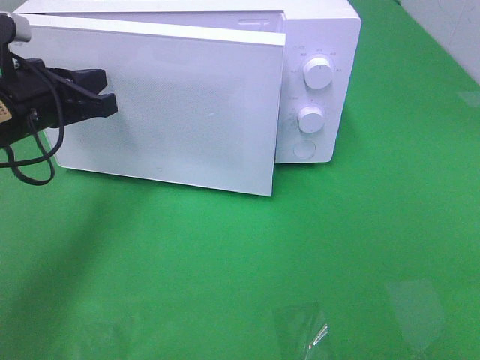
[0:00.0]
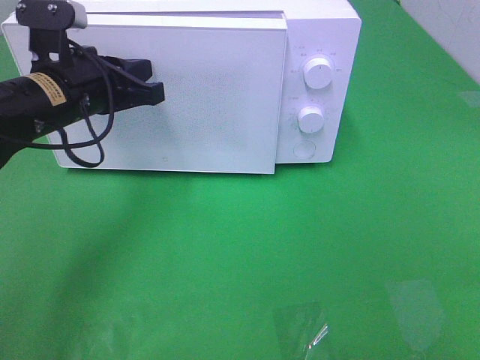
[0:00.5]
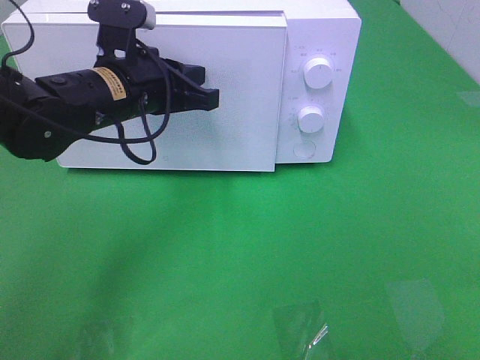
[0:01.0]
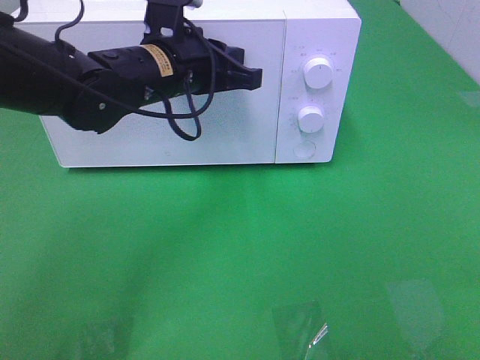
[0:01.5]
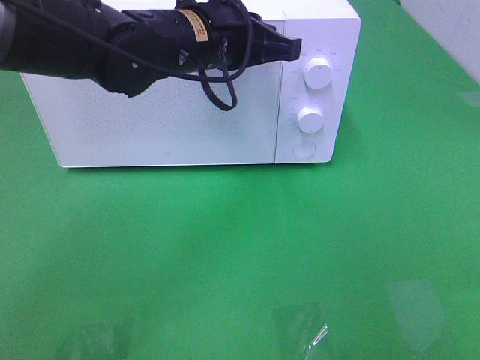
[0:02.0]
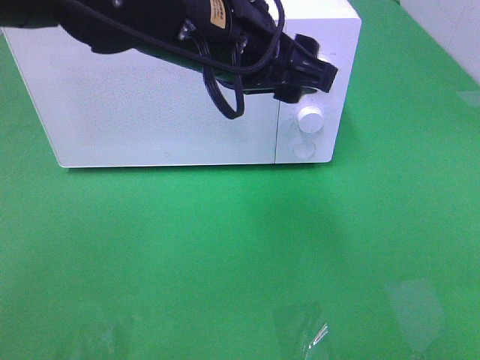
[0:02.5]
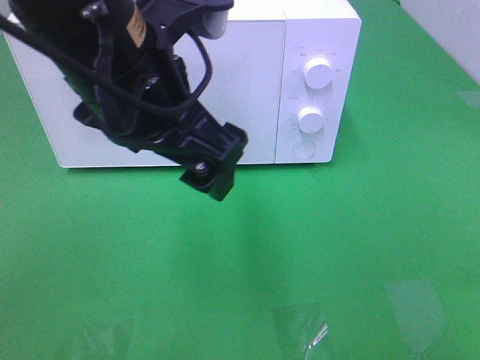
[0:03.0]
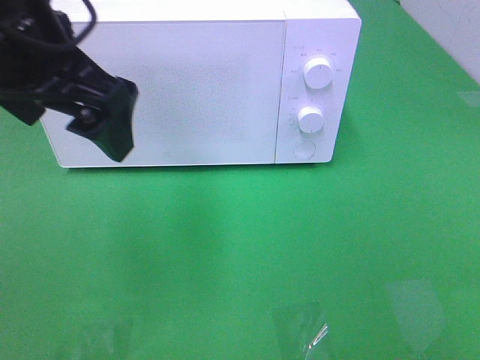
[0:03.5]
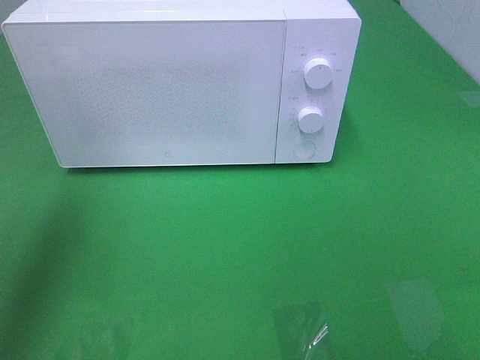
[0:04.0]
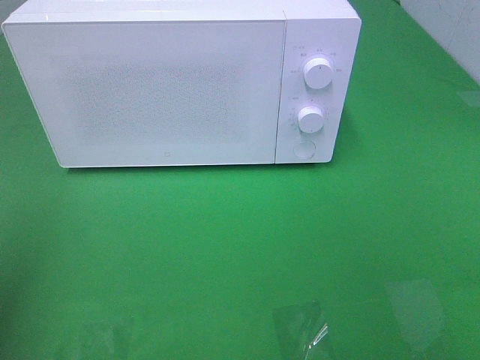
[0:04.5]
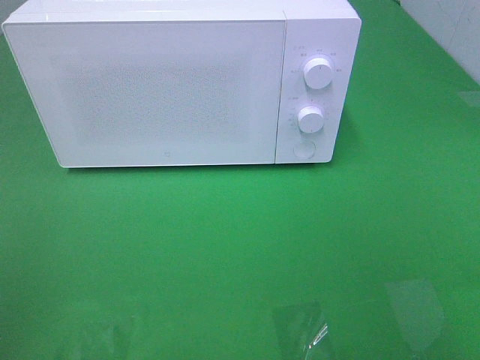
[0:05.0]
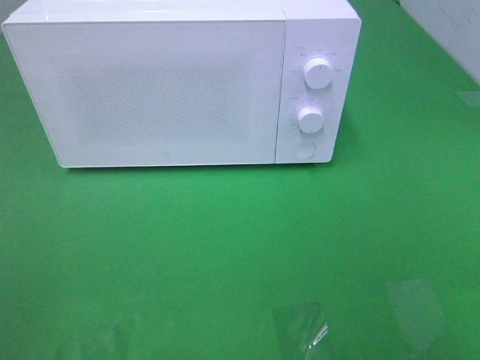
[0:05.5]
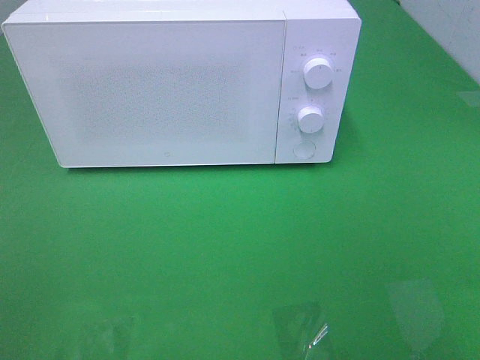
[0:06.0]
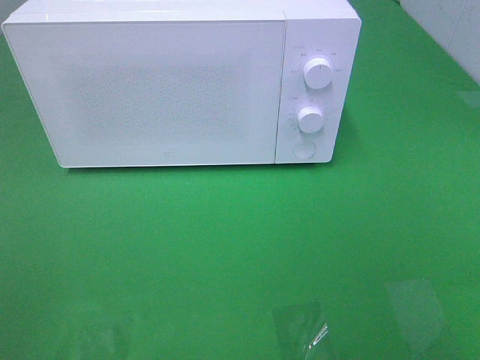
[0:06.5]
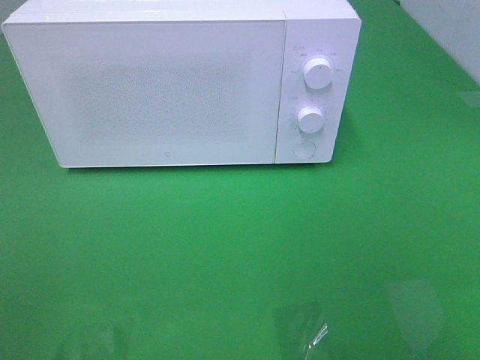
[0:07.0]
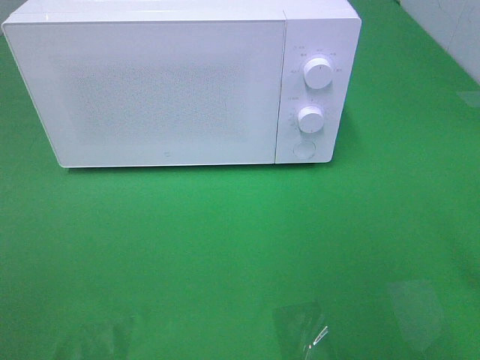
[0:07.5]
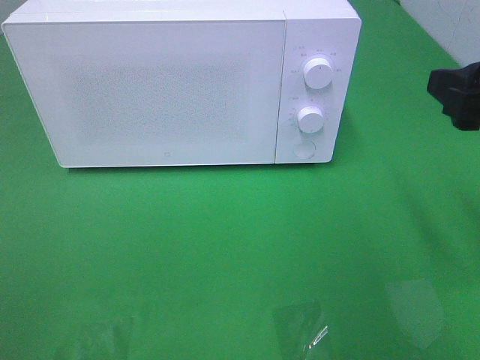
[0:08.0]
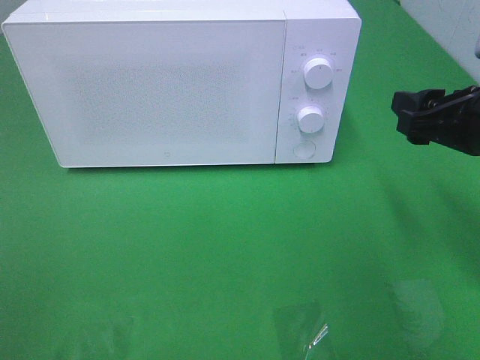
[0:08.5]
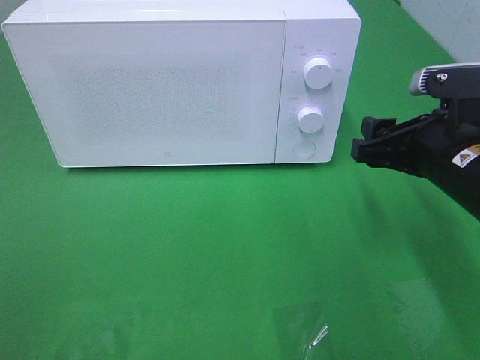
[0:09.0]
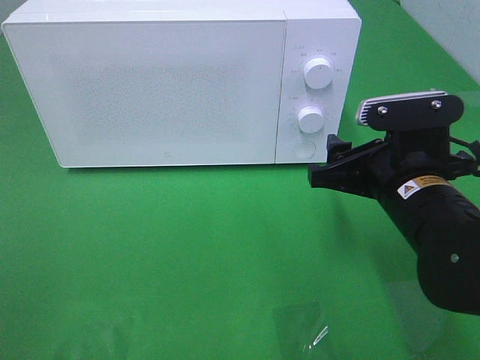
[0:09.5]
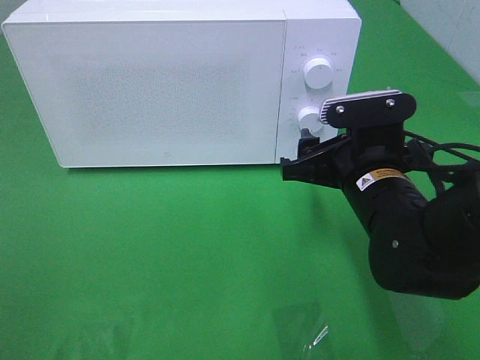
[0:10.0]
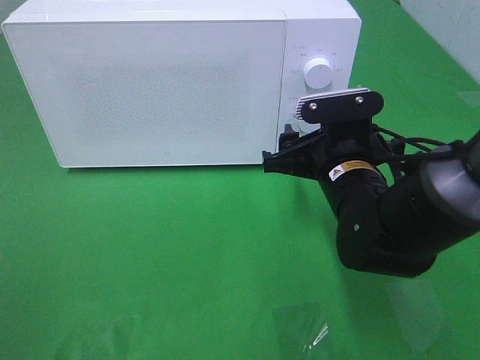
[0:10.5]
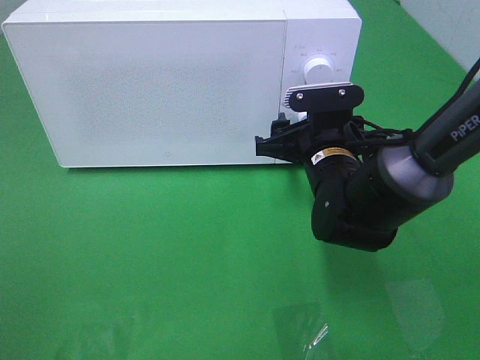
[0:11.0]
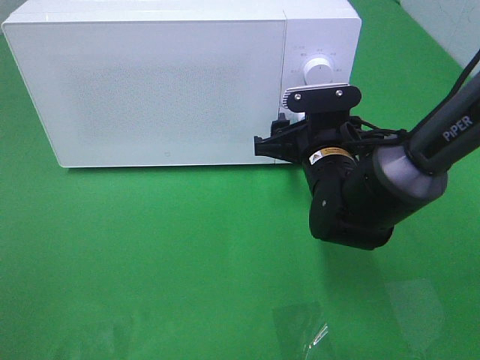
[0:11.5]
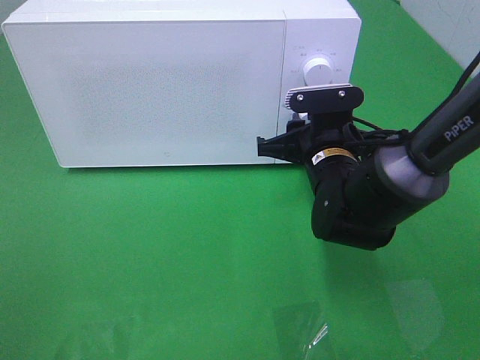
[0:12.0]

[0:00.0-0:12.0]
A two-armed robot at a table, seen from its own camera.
Task of the whole recording: Heat the burger.
Step, 0:00.0 to 0:02.0: Left hand: close the microwave door.
0:00.0 to 0:02.0: The left gripper shifts about 20 cm to the right.
0:02.0 to 0:04.0: The left gripper shifts about 30 cm to the left, backward and upward, and opens.
0:04.0 to 0:06.0: The left gripper shifts roughly 25 cm backward.
0:06.0 to 0:08.0: The right gripper is displaced forward by about 20 cm.
0:08.0 to 0:10.0: The right gripper goes about 20 cm downward, to the left and forward.
0:10.0 to 0:12.0: The right gripper heads forward, covering about 5 cm.

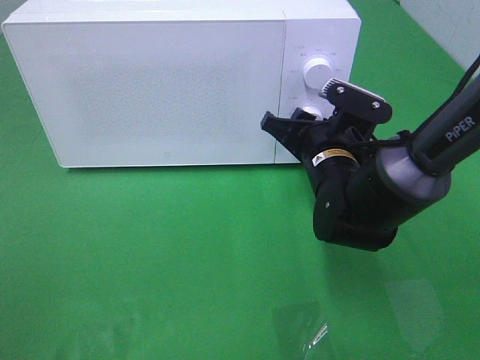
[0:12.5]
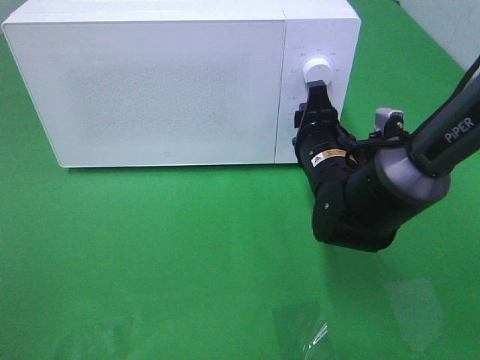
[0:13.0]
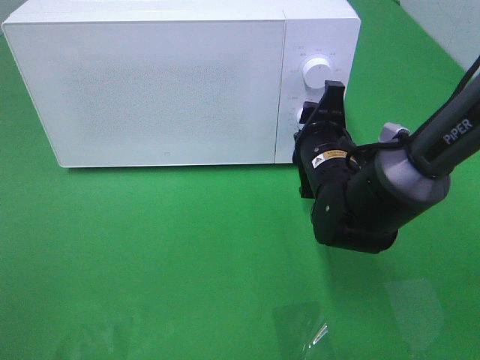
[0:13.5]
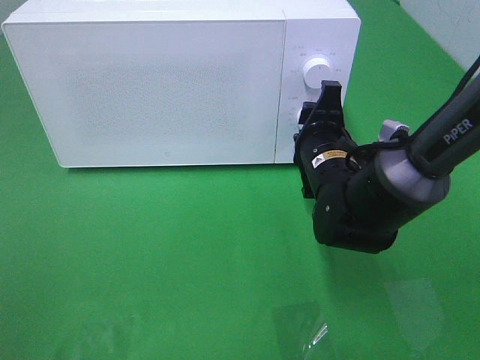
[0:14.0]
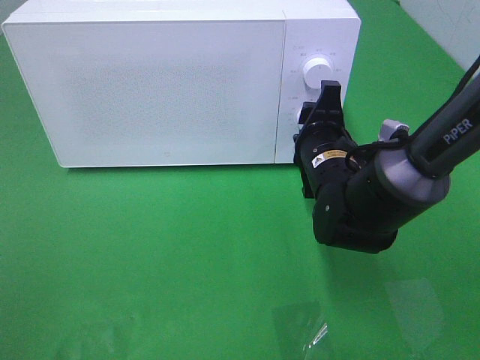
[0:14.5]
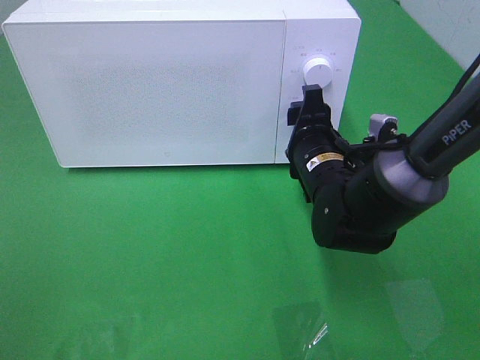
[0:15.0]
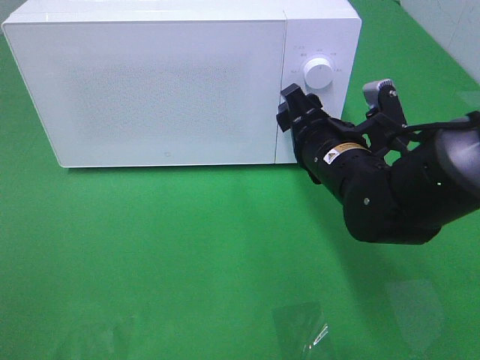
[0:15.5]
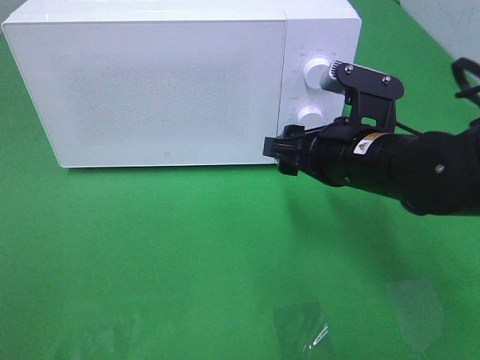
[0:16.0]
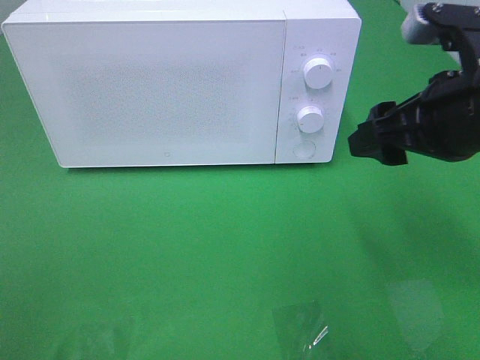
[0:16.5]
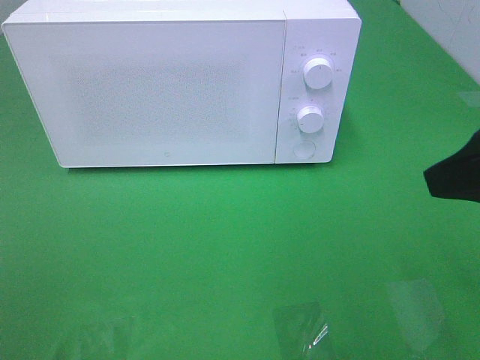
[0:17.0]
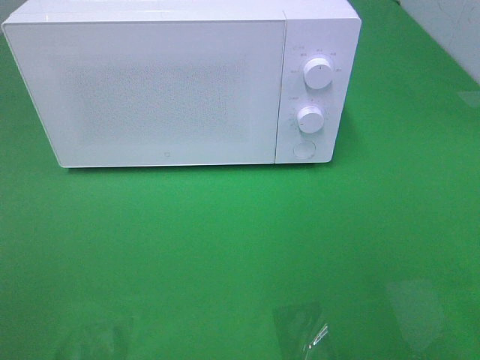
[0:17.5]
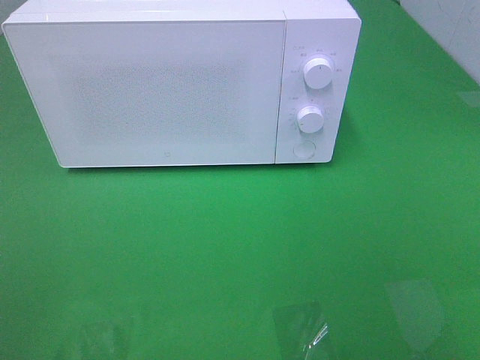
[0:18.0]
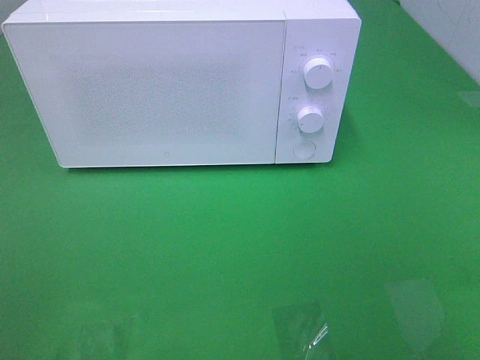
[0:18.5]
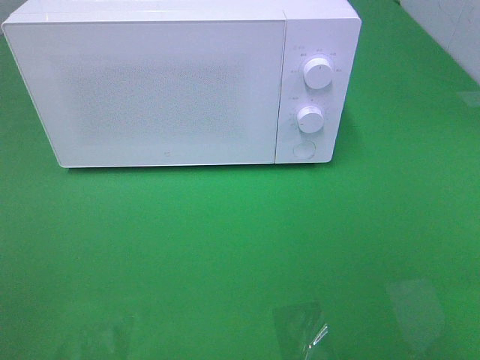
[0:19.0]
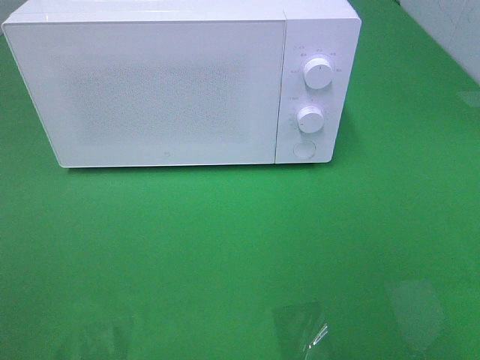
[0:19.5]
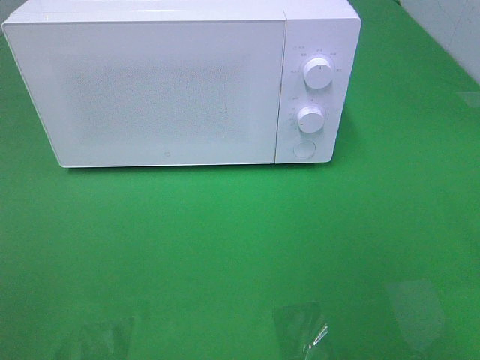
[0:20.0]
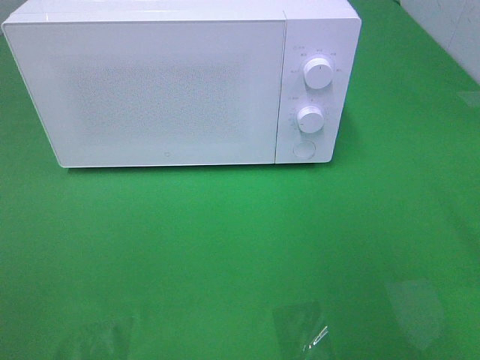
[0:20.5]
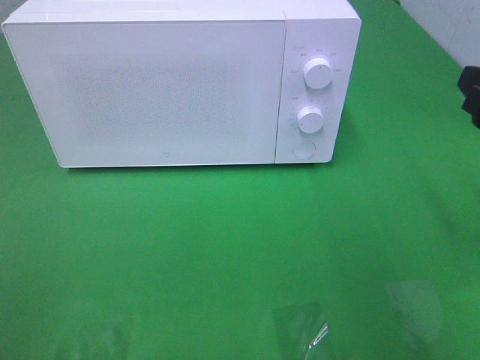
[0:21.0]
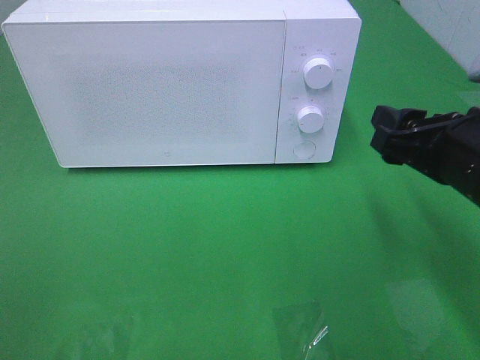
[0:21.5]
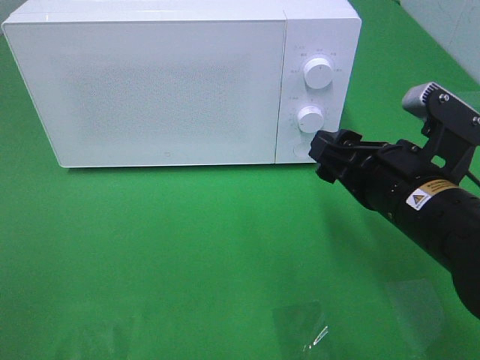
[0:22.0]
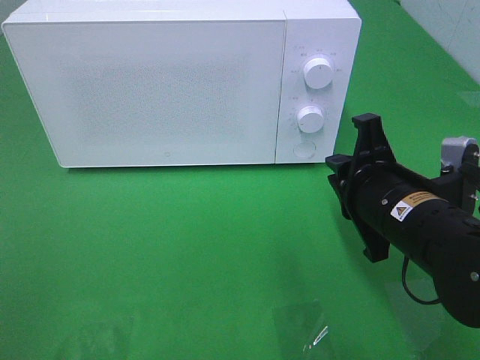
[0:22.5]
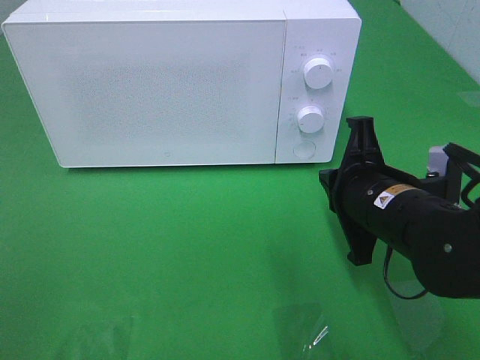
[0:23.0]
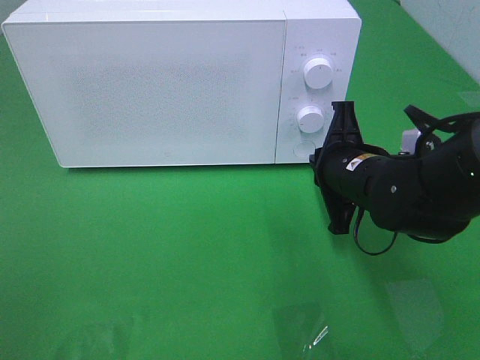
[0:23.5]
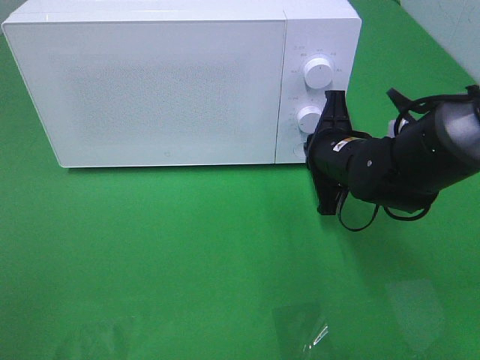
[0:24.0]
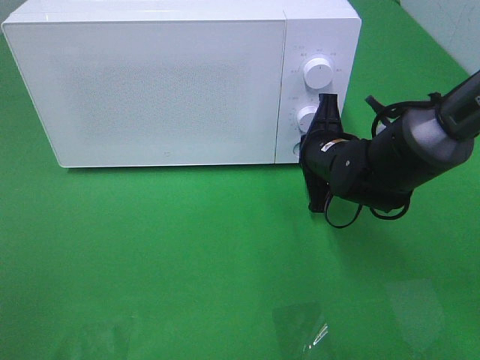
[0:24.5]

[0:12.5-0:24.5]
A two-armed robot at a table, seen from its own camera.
Task of the whole recording: Heat the burger.
Step, 0:12.5 to 0:14.5: Right hand: twist timer button.
0:14.5 to 0:16.5: The right gripper travels upward, backward and to the right by approximately 20 cm.
0:16.5 to 0:18.5: The right gripper shifts approximately 25 cm backward.
0:20.5 to 0:22.5: The right gripper travels downward and to the left by some 20 cm, and closes up.
0:22.5 to 0:24.5: The right gripper is displaced forward by approximately 15 cm.

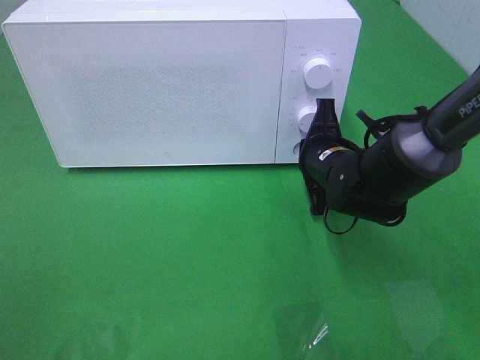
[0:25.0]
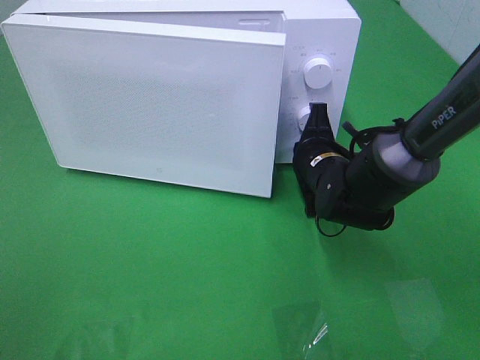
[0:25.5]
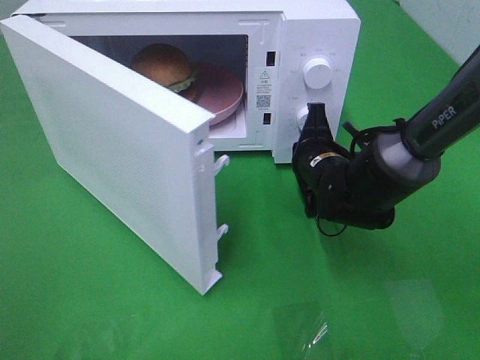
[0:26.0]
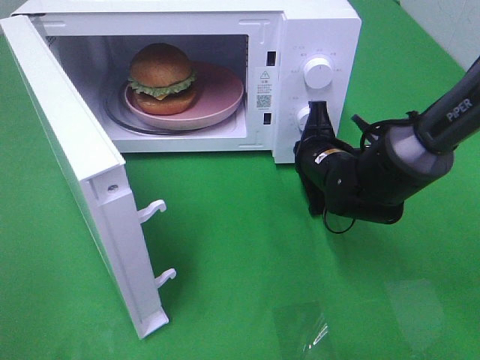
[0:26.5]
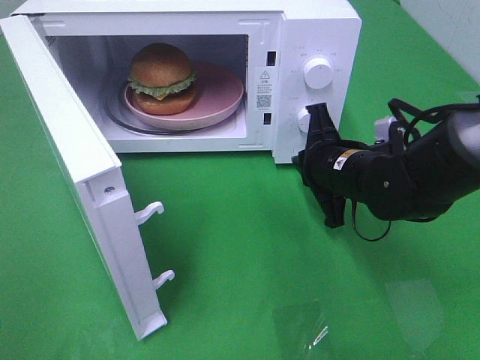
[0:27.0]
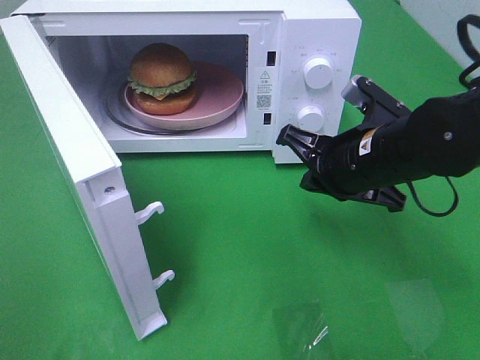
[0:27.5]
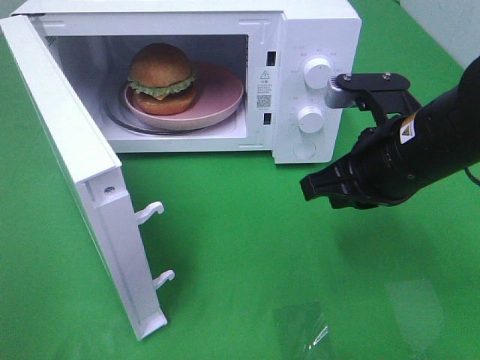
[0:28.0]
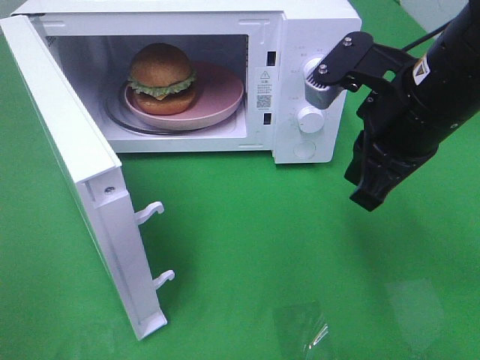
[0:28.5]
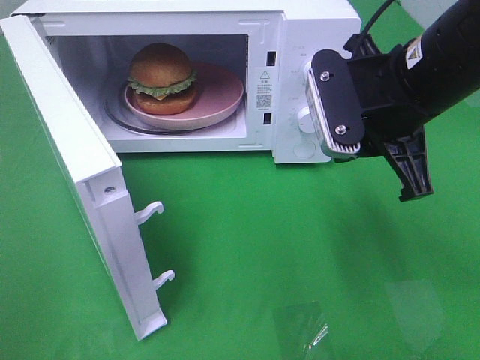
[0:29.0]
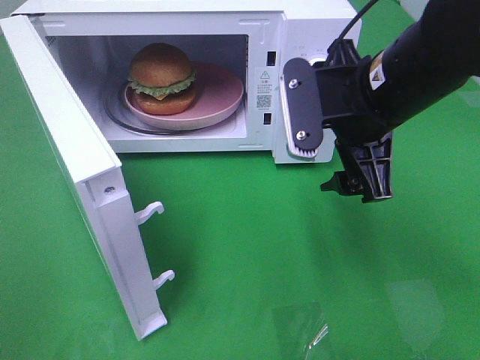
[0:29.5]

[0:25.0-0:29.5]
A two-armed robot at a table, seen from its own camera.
Task of the whole recording: Heat the burger.
0:27.0 to 0:29.5: The right gripper goes roughly 15 cm upward, and opens.
